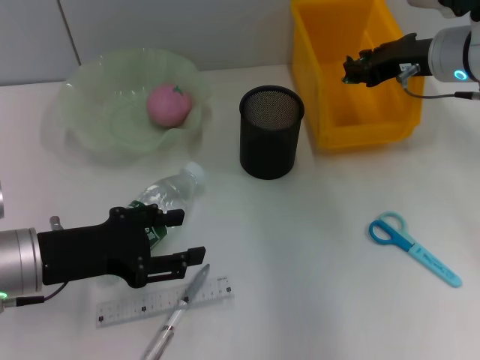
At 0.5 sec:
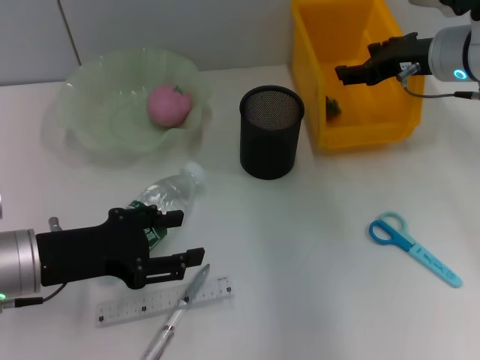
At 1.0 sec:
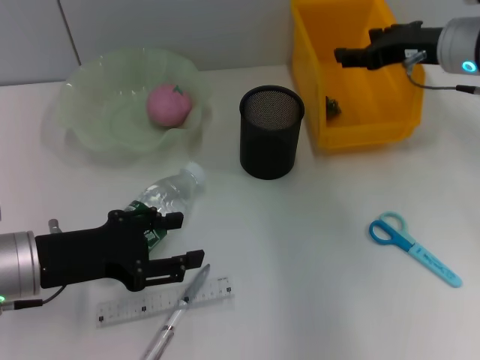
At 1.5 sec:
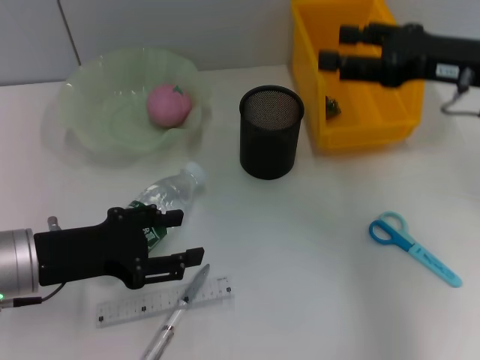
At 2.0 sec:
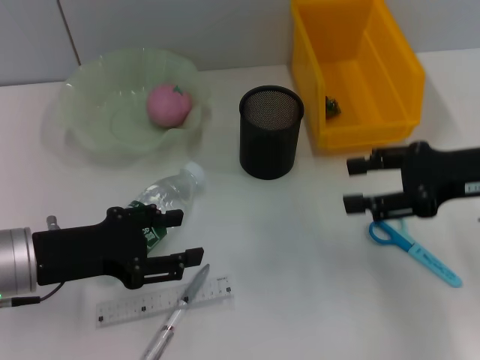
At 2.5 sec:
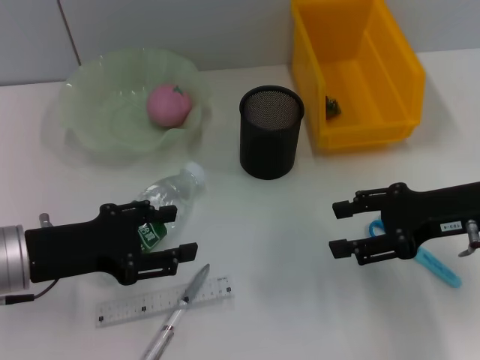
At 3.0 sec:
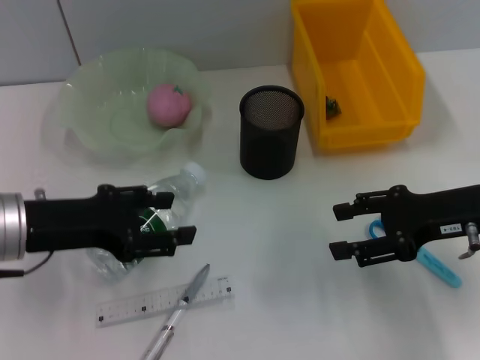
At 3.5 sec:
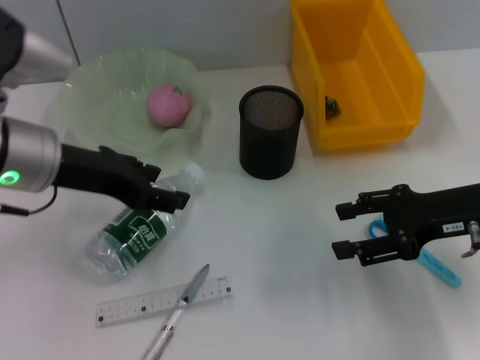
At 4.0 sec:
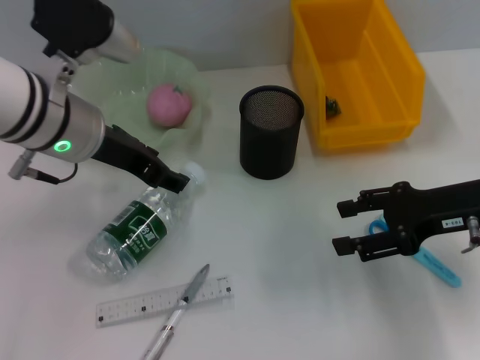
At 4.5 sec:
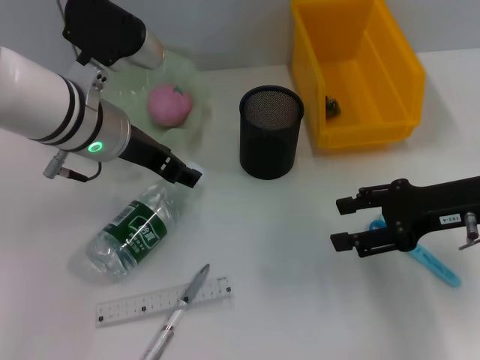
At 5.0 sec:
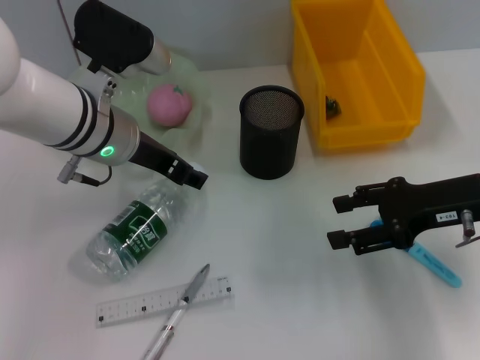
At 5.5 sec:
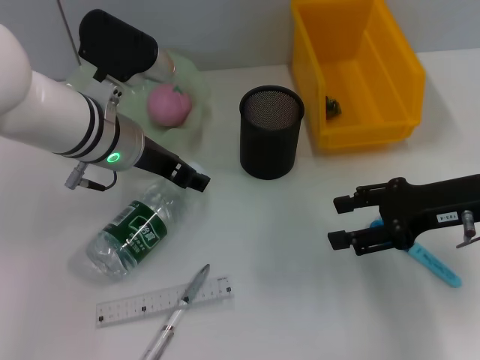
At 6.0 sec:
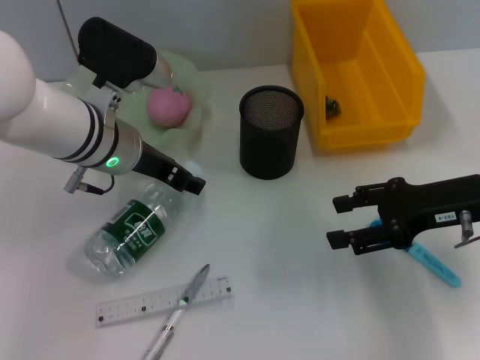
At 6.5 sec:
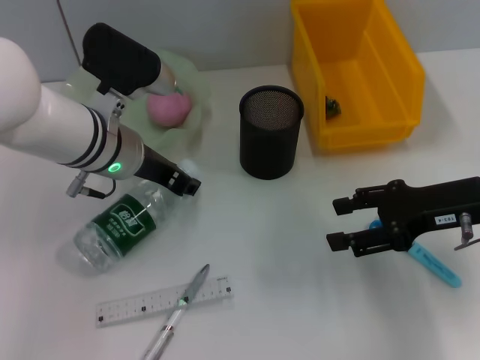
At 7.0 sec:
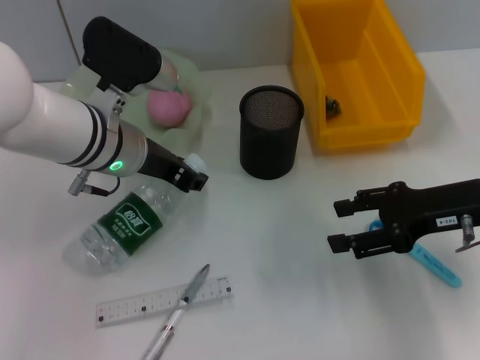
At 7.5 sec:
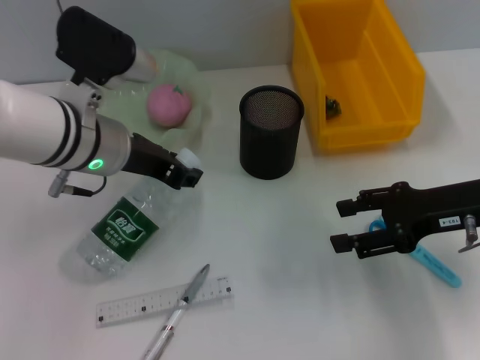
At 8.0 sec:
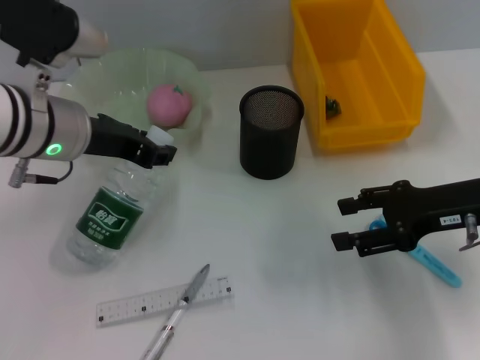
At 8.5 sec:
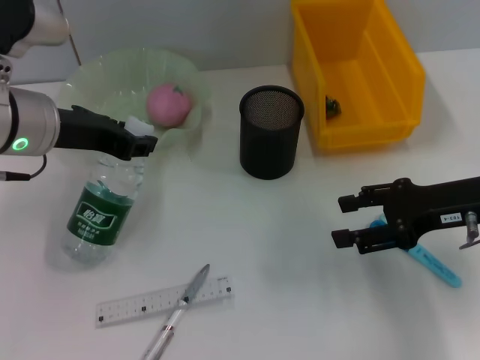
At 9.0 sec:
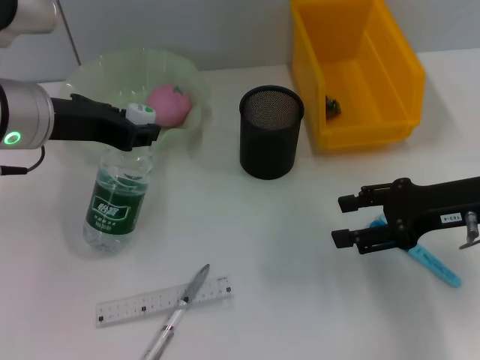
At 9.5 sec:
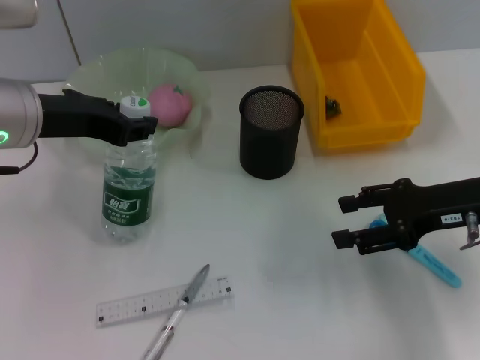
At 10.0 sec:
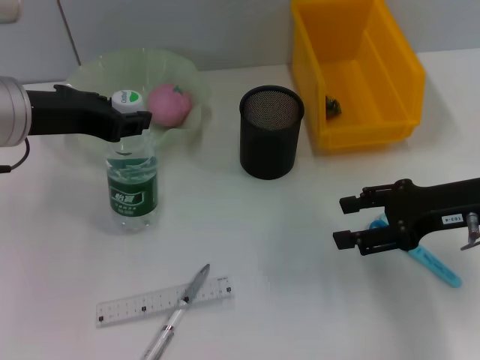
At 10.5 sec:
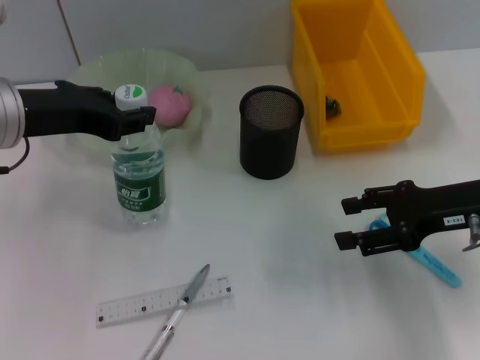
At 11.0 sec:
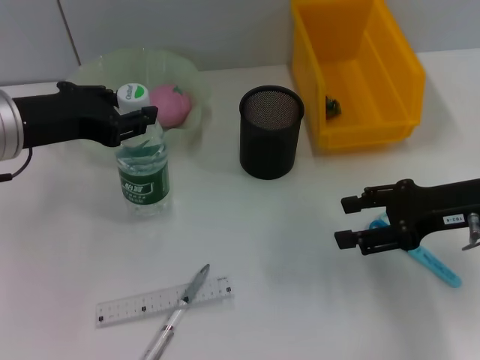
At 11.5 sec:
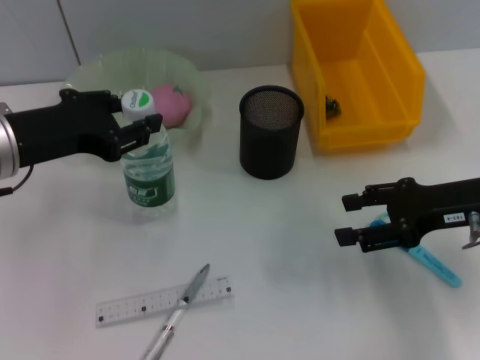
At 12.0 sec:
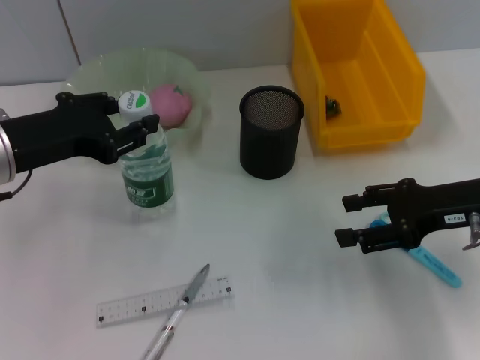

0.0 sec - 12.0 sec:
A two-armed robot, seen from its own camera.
Step, 1.5 sec - 6.5 sec: Grab the water bottle with the left hand.
Step, 7.0 sec - 11.0 sec: Place the water bottle on the table with the left hand.
0.0 sec - 2.0 sec: The right gripper shifts approximately 10 cm backward, and opens its fingers.
2.0 sec - 4.0 sec: The left gripper travels upward, forward and to the right by some 15 cm.
4.0 sec - 6.0 sec: The left gripper goes some 5 cm downward.
6.0 sec - 8.0 sec: The left gripper shifts by about 5 cm, and closes up.
8.0 sec - 10.0 sec: The left gripper shifts by some 5 cm.
10.0 sec - 12.0 sec: The left gripper ends up some 5 cm from where it was.

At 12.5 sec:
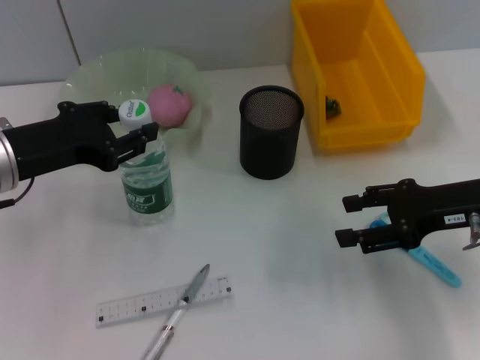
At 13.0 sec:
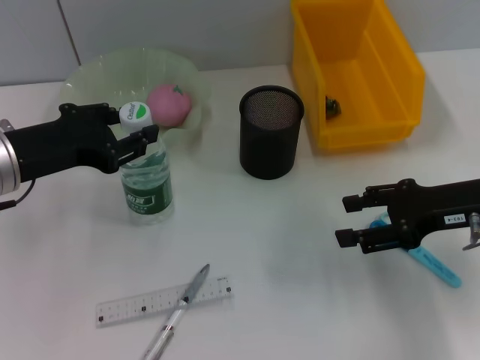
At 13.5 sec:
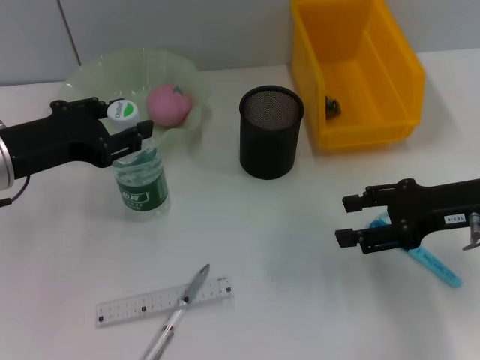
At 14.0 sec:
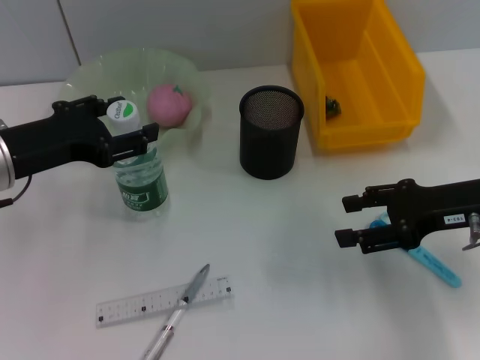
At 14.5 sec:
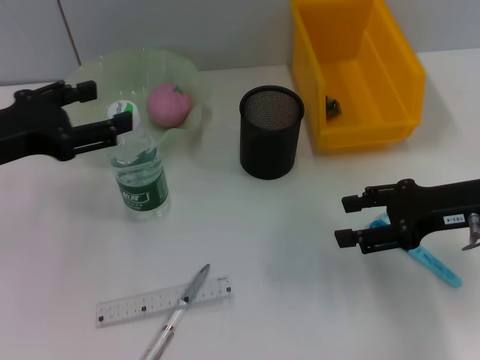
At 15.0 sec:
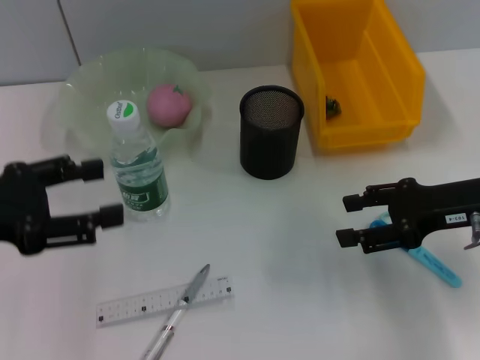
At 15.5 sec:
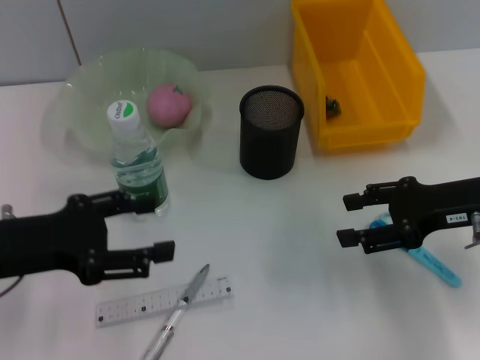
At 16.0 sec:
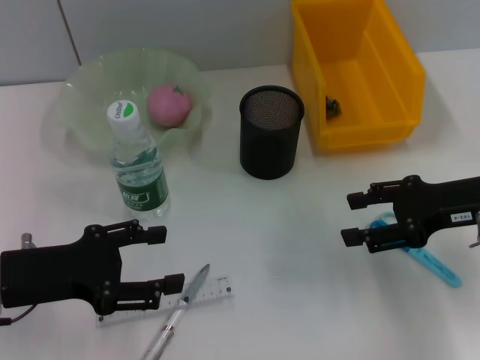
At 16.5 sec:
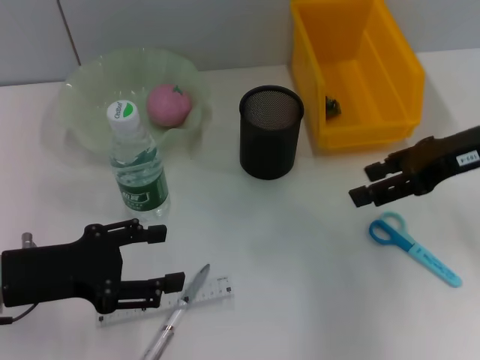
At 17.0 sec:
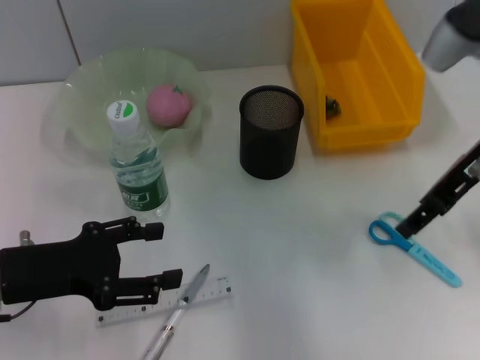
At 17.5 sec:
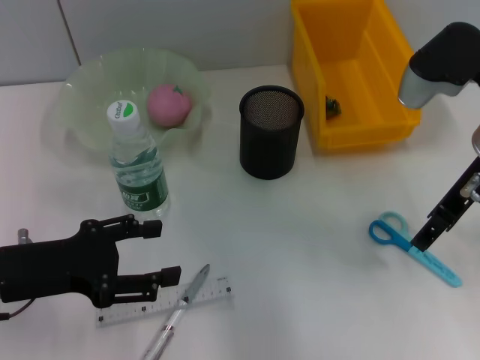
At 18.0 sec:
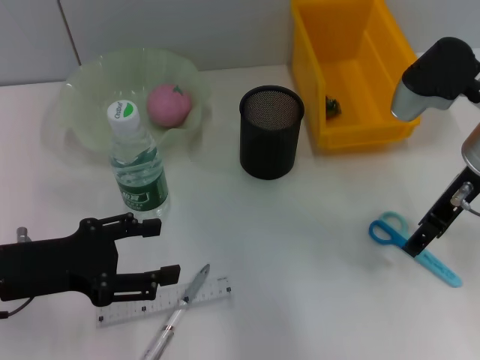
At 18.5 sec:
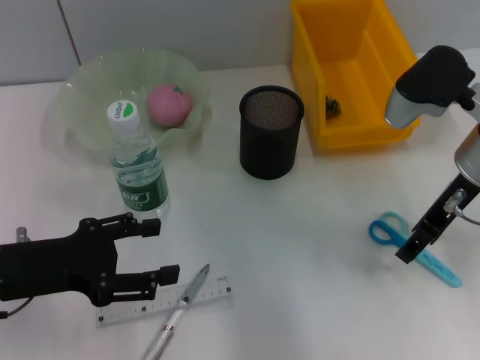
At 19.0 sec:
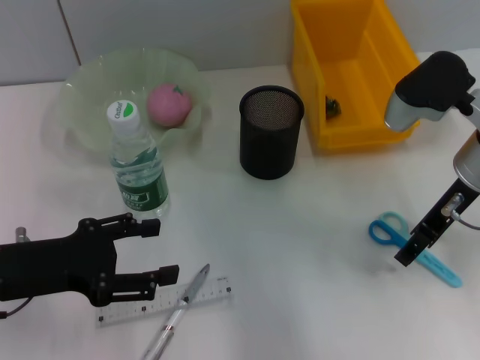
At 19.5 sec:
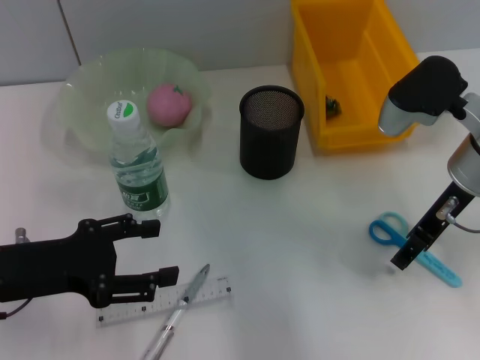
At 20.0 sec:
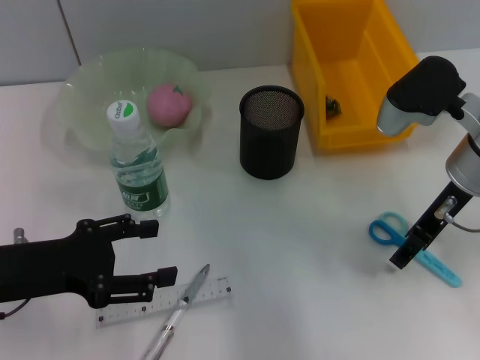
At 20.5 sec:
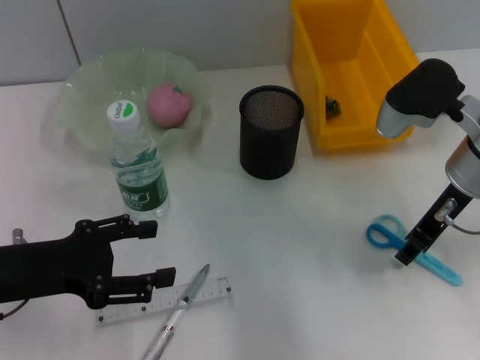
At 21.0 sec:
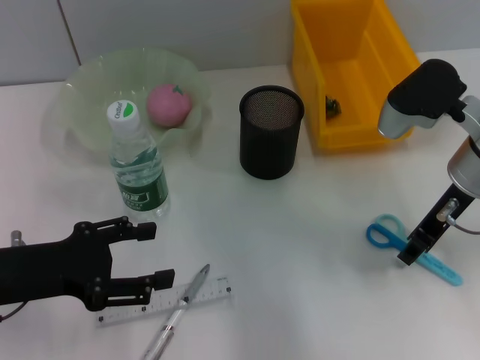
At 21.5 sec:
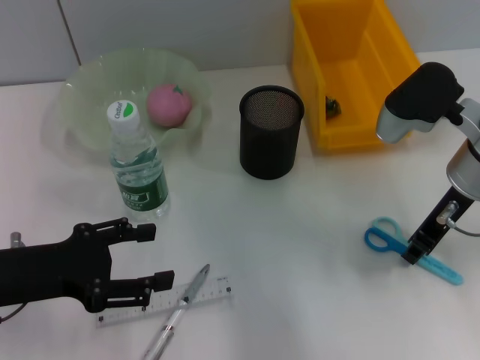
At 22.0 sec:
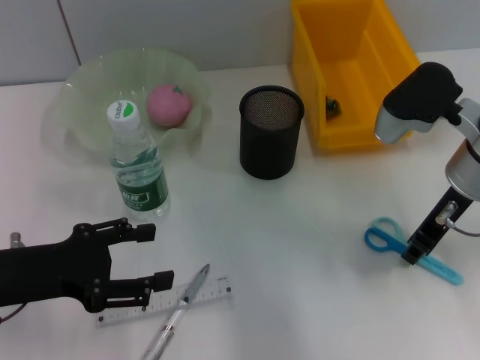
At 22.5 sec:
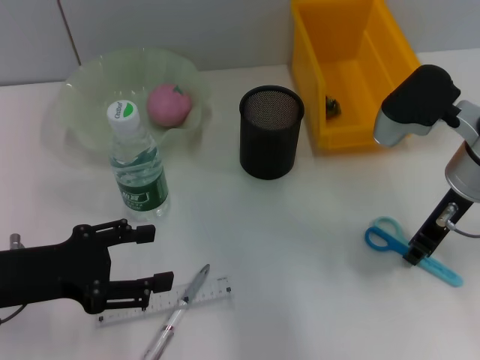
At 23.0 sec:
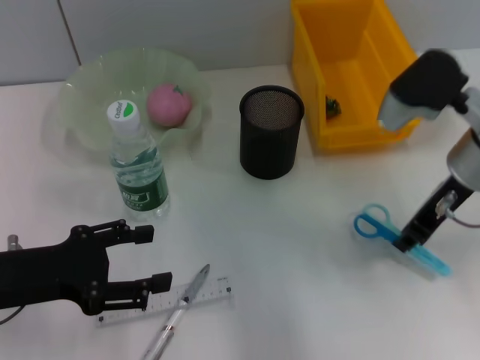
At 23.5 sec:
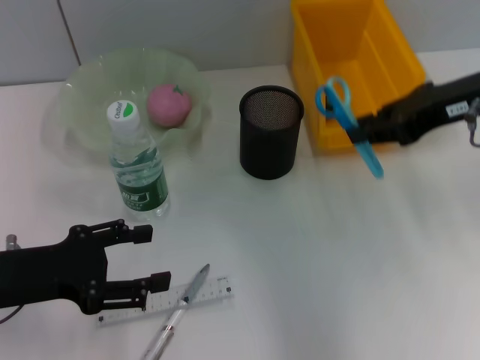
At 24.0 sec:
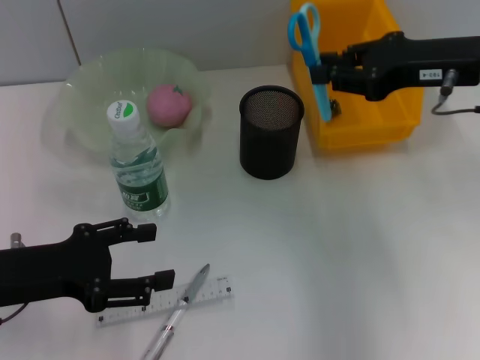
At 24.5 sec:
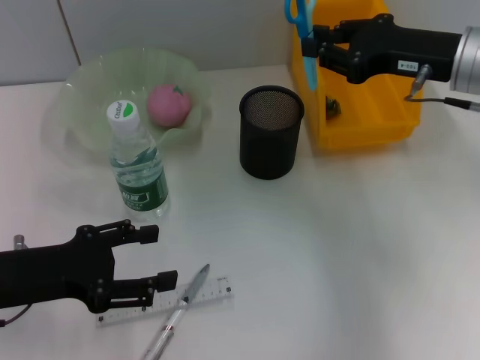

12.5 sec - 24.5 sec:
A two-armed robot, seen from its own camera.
Step, 12.5 sec - 22.0 sec: Grab the blue scissors with the right hand.
12.5 sec - 14.5 sec: The left gripper opens.
14.5 sec - 16.5 sec: The right gripper travels upward by approximately 10 cm; the left gripper is displaced downward and backward by approximately 10 cm.
16.5 sec - 18.5 sec: The right gripper shifts by approximately 5 cm.
18.5 sec - 20.5 sec: Both grippers stay put.
20.5 sec - 22.5 sec: The right gripper closes its fingers.

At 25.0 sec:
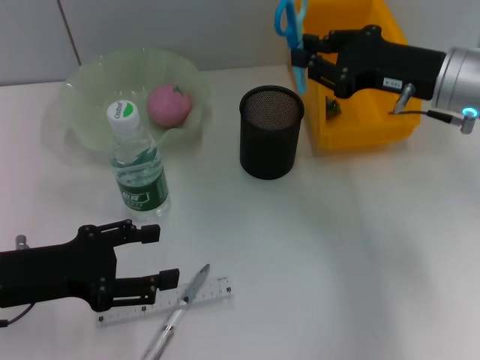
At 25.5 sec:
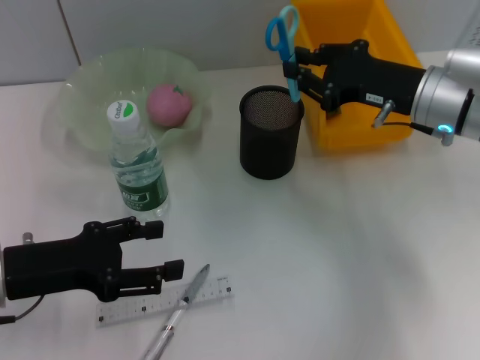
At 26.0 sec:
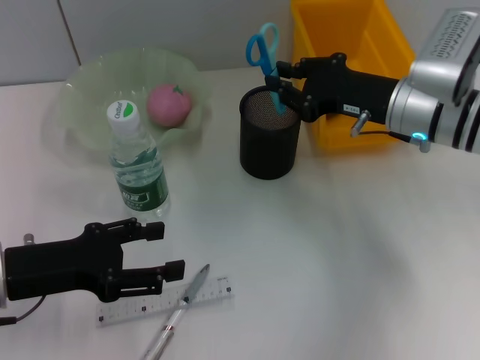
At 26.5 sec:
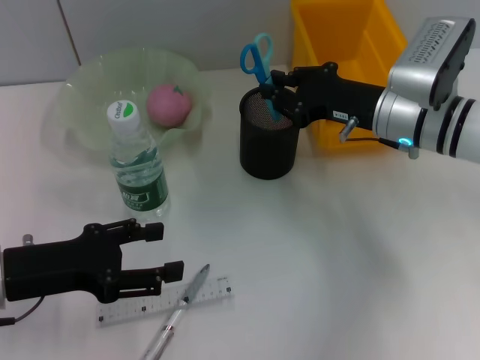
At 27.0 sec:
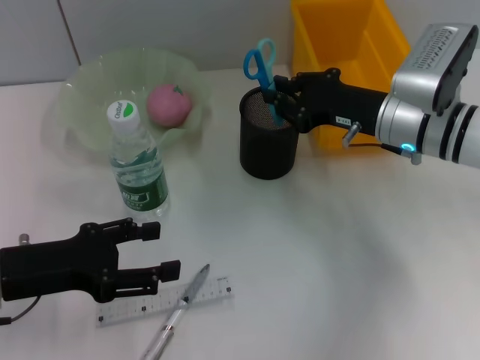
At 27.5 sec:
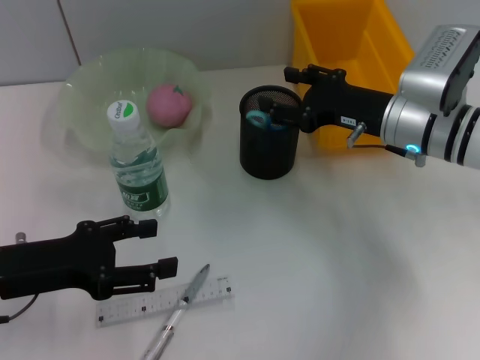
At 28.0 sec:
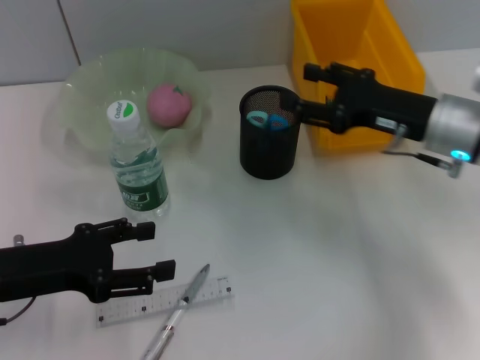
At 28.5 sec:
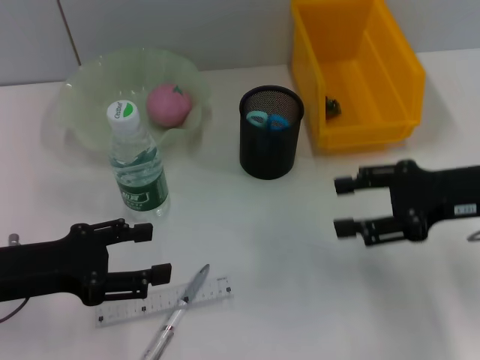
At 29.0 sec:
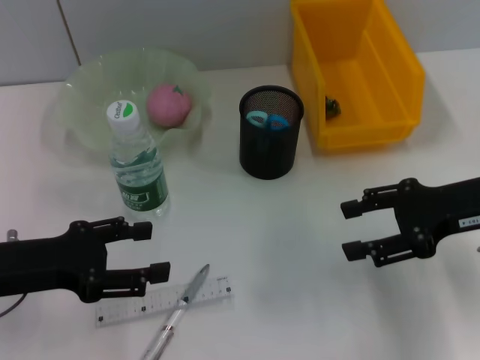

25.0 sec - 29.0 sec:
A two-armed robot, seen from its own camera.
Step, 25.0 sec - 28.5 sec: Place the blue scissors into the pen holder with the right hand.
25.0 sec - 27.0 sec: The right gripper heads downward, covering approximately 5 cm.
27.0 sec - 29.0 sec: The right gripper heads to the right and backward, covering about 10 cm, and opens up.
